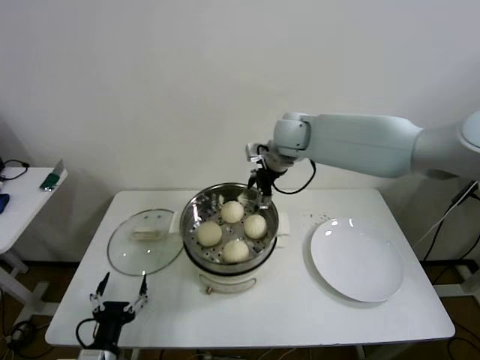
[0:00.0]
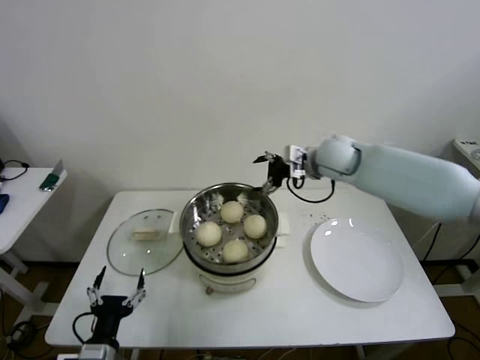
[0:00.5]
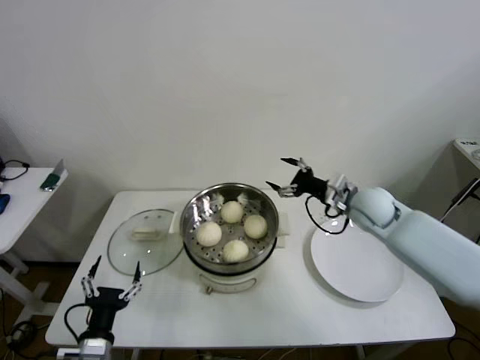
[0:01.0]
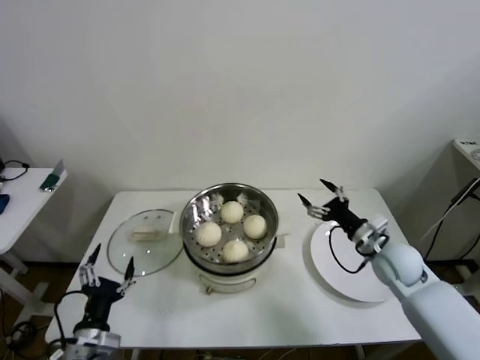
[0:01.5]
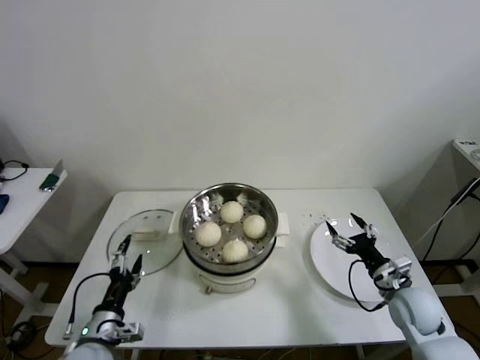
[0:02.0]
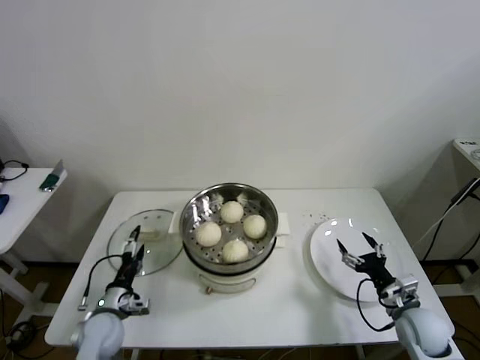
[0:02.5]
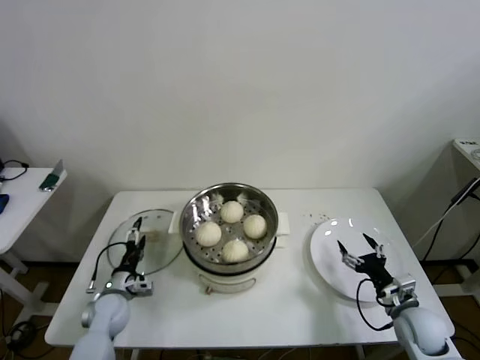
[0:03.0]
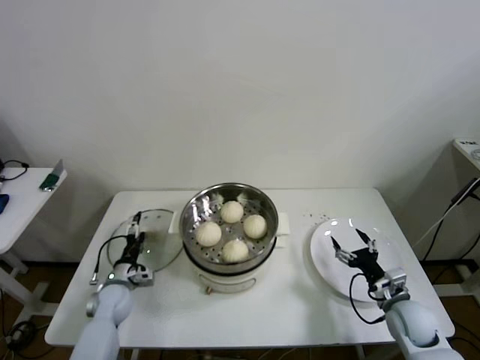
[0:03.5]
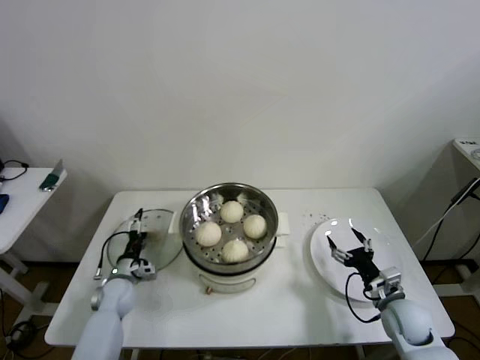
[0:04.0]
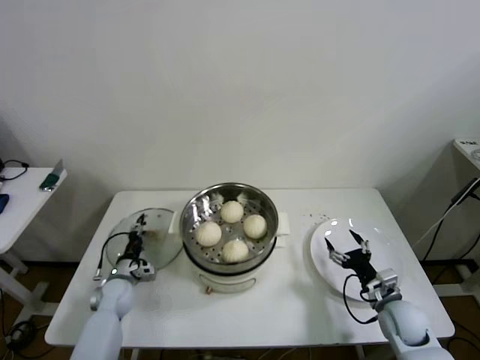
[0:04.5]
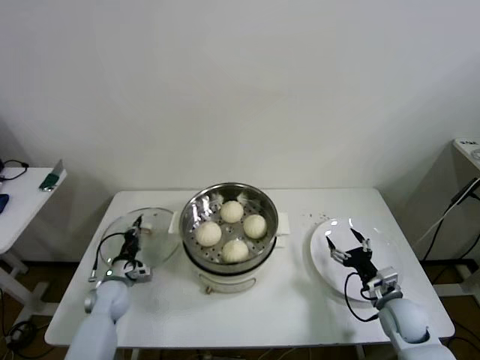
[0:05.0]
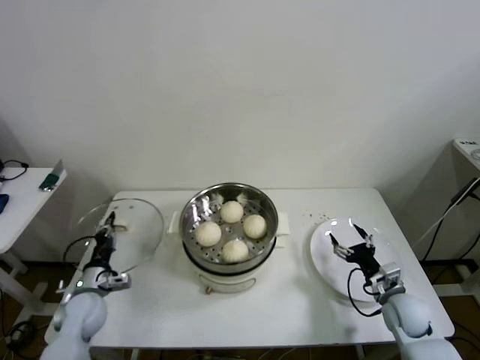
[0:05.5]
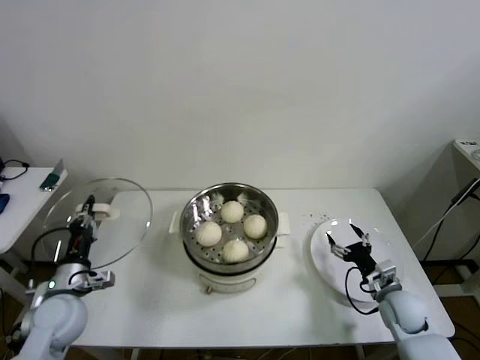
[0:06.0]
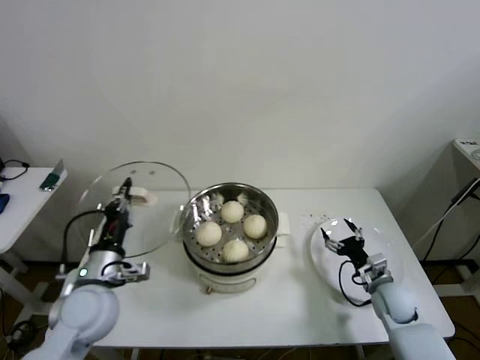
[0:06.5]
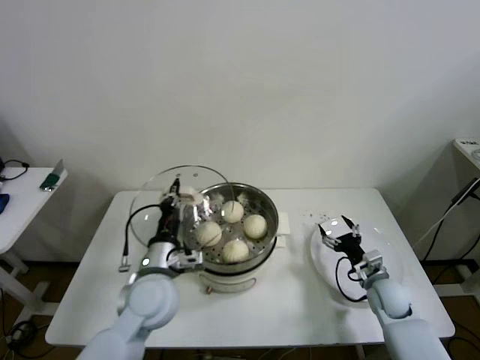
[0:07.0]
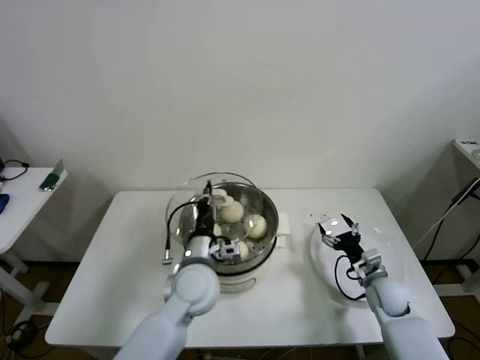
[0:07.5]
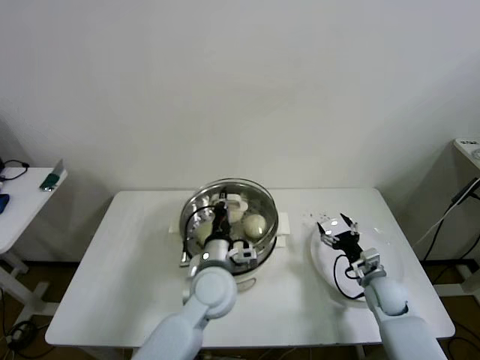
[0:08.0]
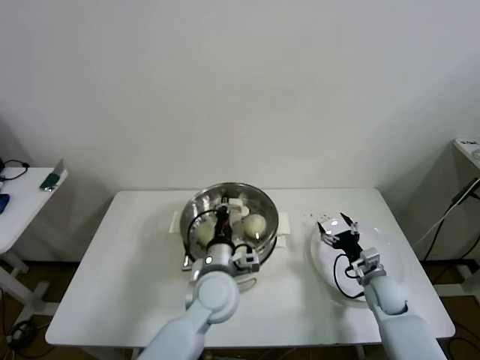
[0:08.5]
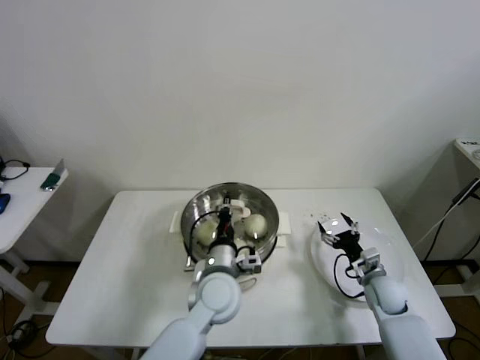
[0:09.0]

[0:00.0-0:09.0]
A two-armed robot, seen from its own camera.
Step, 0:00.0 to 0:04.5: Grasp the pot lid with left gripper.
0:00.0 to 0:02.0: The right gripper heads downward, backward and to the right, covering roughly 50 cm. Meanwhile the left gripper heads forward, covering some 5 cm.
0:02.0 to 0:04.5: The right gripper heads downward, covering some 5 cm, while the left gripper moves forward and downward, roughly 20 cm, and closes up.
0:04.5 to 0:07.0: The left gripper goes approximately 30 cm upward, to the right and backward, and closes its fingers; the right gripper moves forward, about 5 cm.
0:07.0 to 0:09.0: The left gripper is displaced to the right by roughly 15 cm.

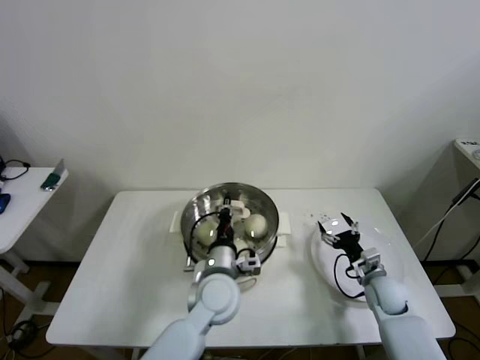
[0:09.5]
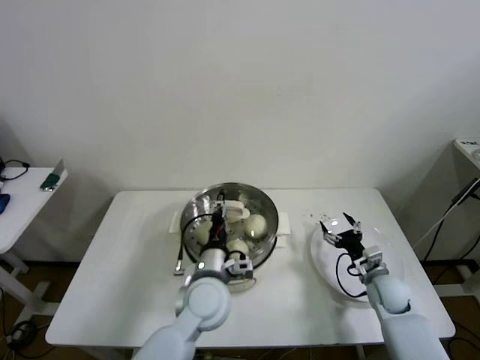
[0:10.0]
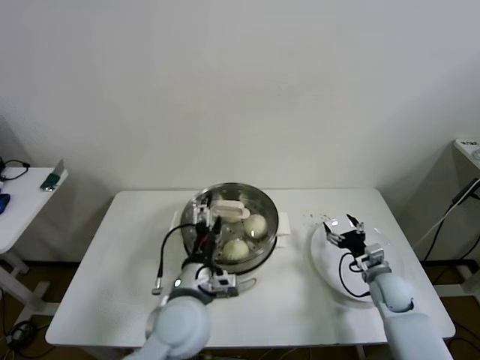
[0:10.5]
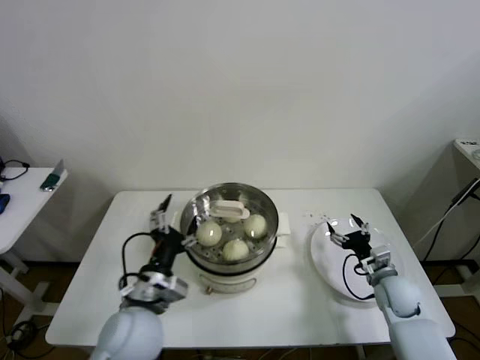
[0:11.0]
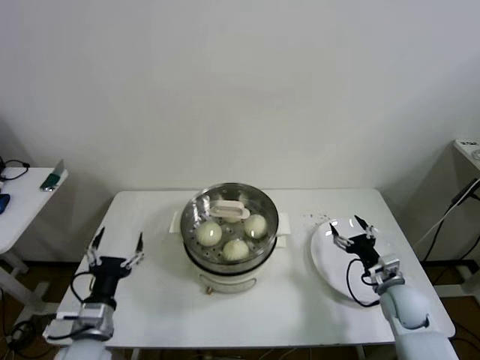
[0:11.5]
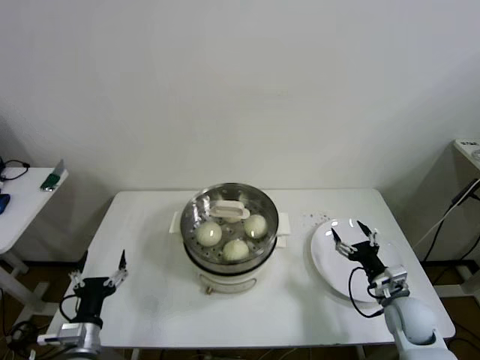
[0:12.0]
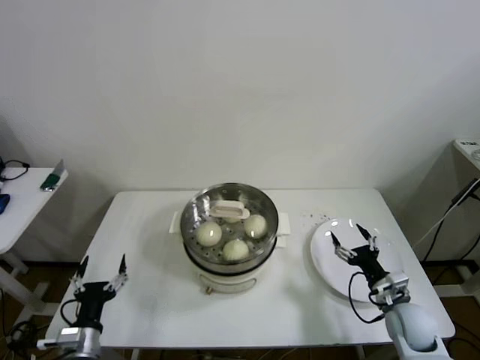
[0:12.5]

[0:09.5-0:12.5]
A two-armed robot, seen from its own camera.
0:09.5 to 0:11.0: The left gripper heads to the left, backward and upward, covering approximately 15 cm, and opens.
0:11.0 to 0:12.5: The left gripper goes some 20 cm to the left and downward; the right gripper goes about 5 cm backward.
